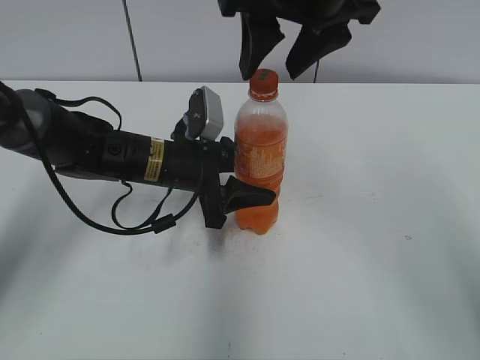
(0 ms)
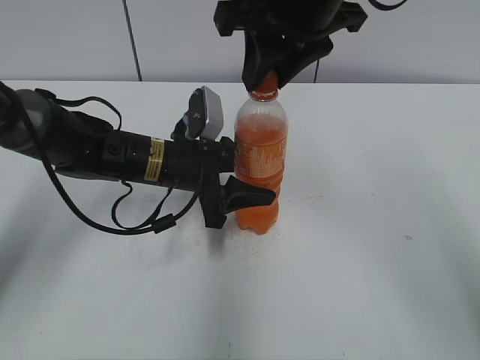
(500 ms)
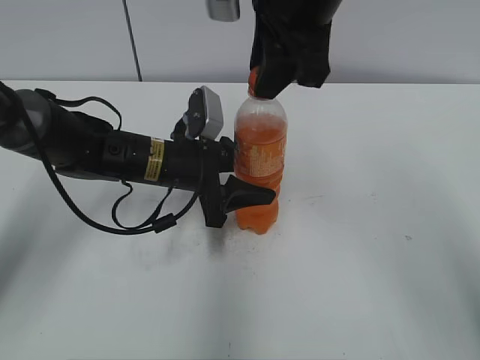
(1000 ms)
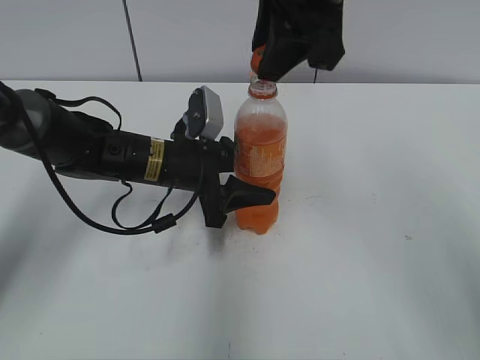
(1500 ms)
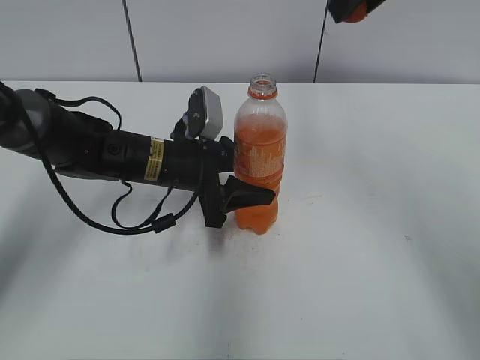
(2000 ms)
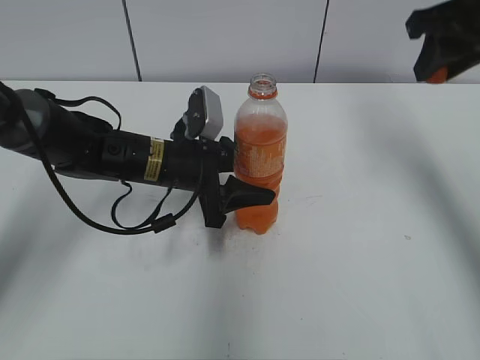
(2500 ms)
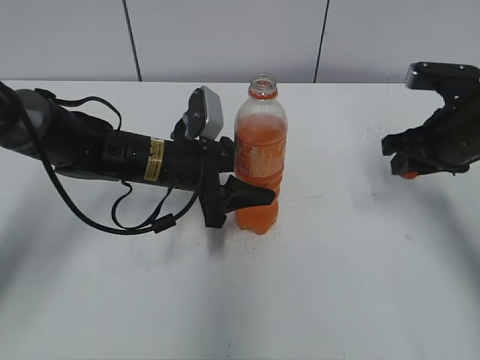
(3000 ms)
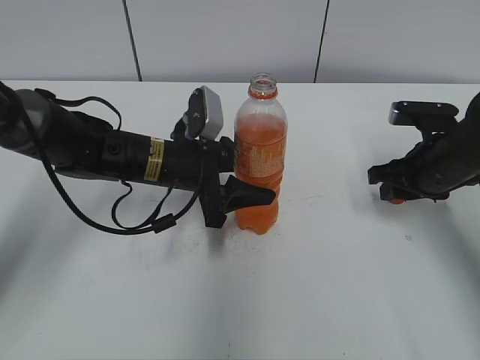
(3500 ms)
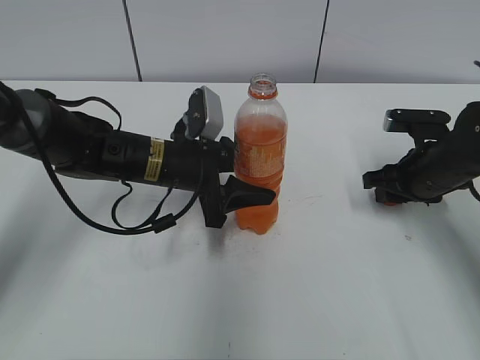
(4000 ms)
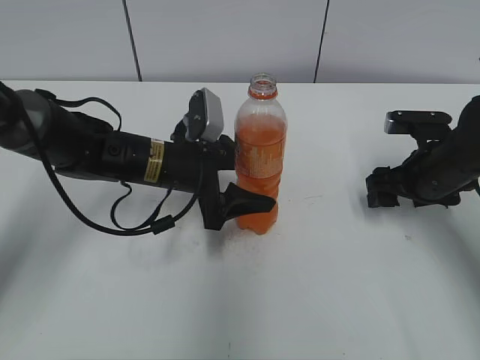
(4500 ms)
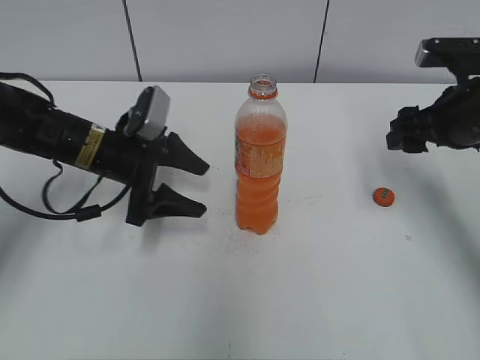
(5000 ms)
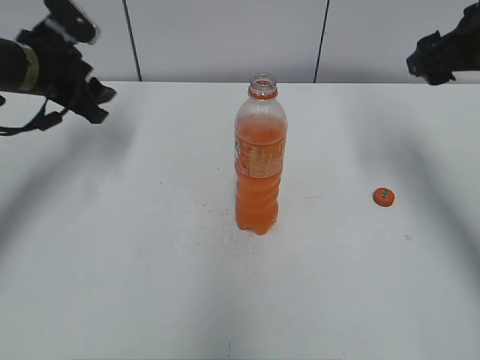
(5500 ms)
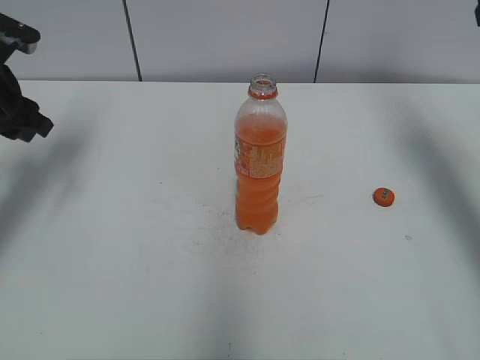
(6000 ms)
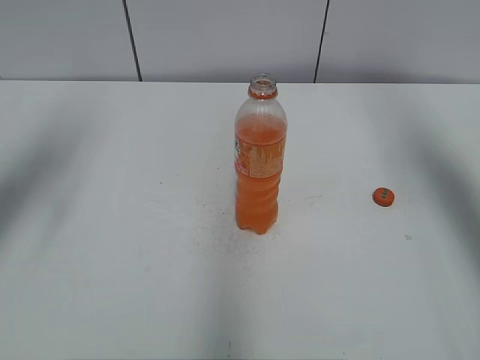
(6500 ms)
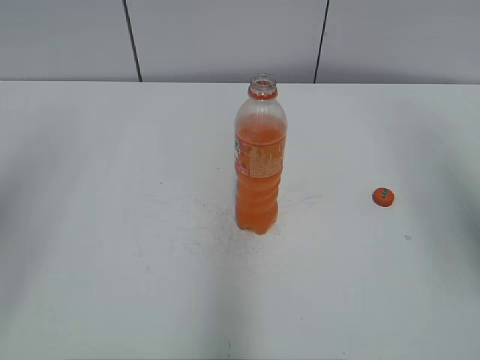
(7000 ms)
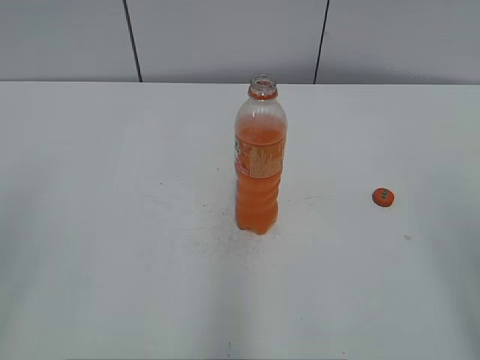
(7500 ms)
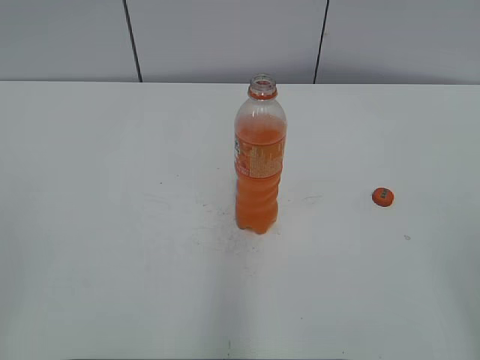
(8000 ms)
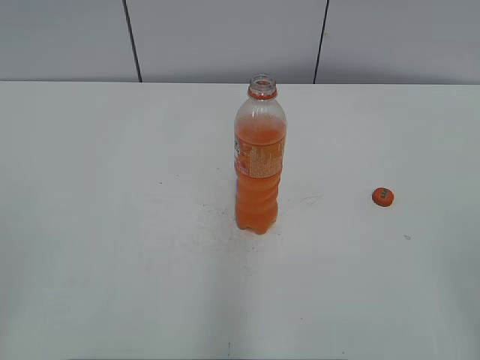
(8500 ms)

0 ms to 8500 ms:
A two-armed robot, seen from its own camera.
Step, 2000 ms to 4000 ms: Place the bottle cap on the right.
0 ms to 2000 ms: The right gripper is displaced to the right by about 10 cm, and closes its fingers.
2000 ms to 4000 ms: The right gripper travels downward by some 30 cm.
4000 ms to 6500 ms: The right gripper shifts approximately 30 cm upward, and opens its fingers. The left gripper moves upward and to the left, some 30 cm, and opens, then closes once more.
6500 ms to 8500 ms: The grippers both shift backward by about 30 cm.

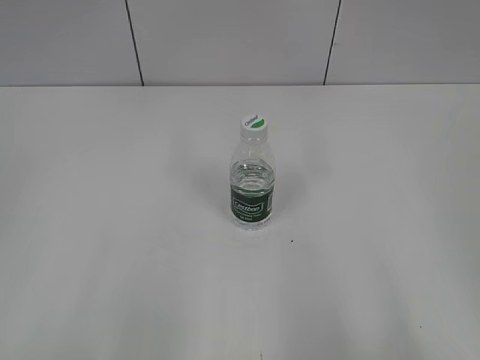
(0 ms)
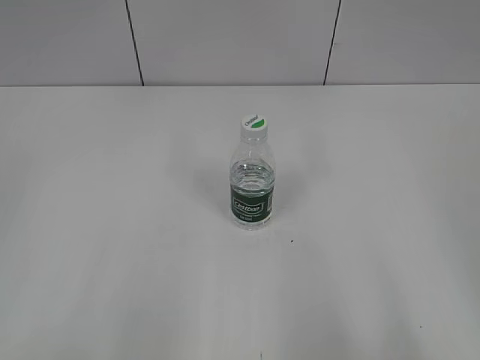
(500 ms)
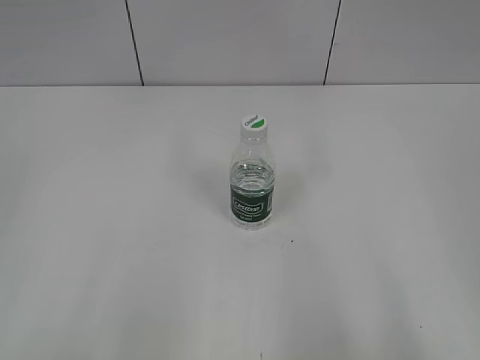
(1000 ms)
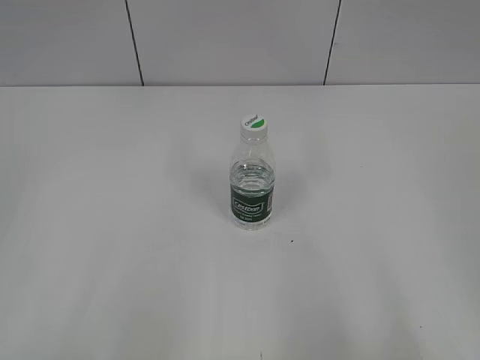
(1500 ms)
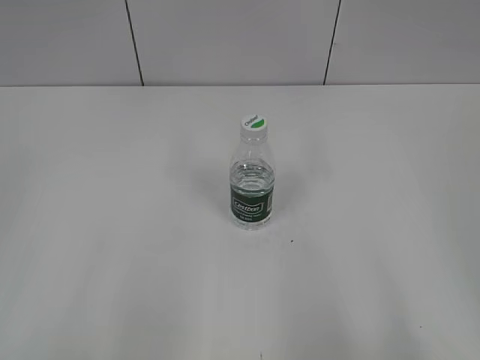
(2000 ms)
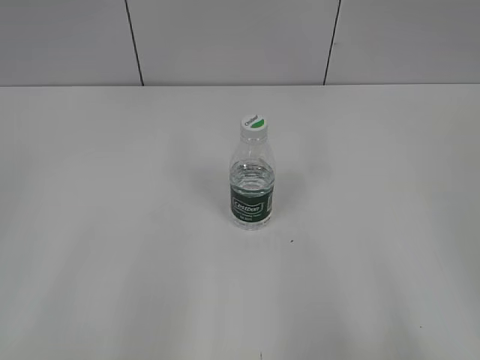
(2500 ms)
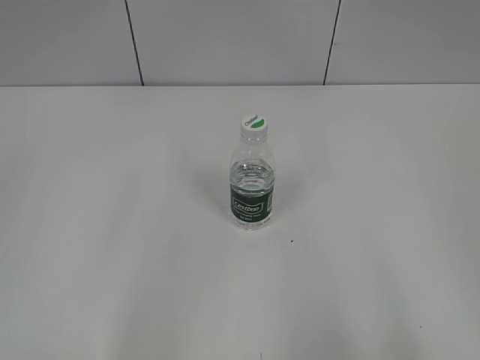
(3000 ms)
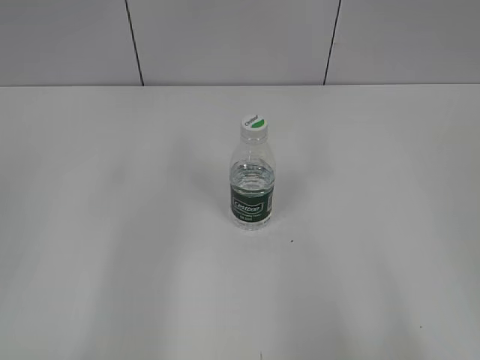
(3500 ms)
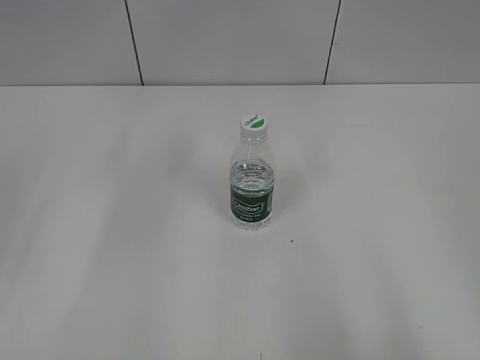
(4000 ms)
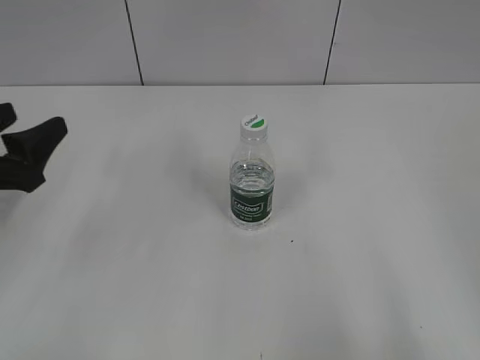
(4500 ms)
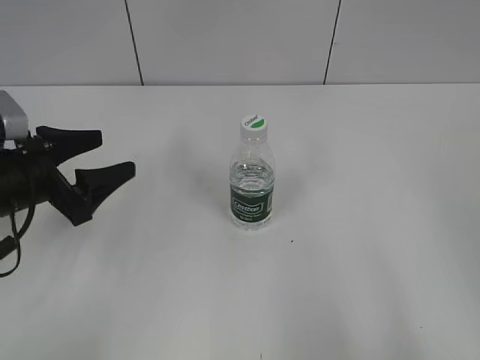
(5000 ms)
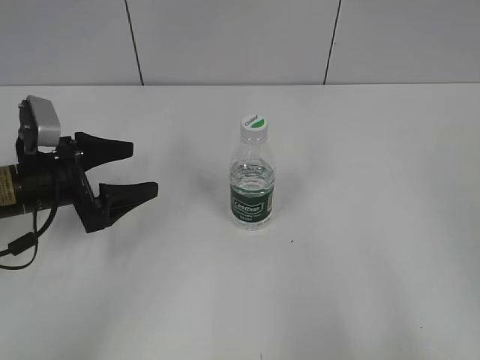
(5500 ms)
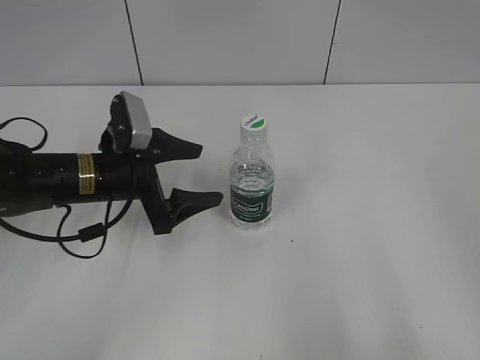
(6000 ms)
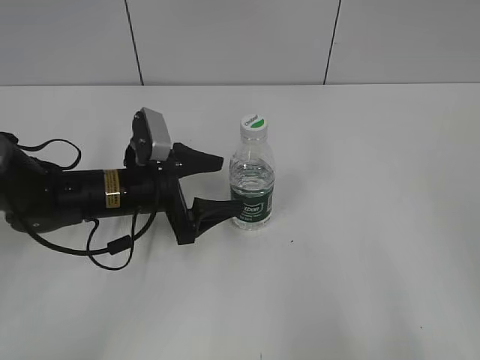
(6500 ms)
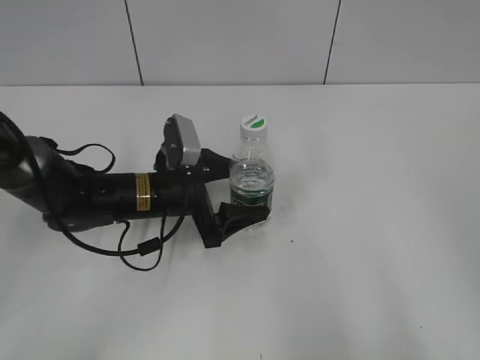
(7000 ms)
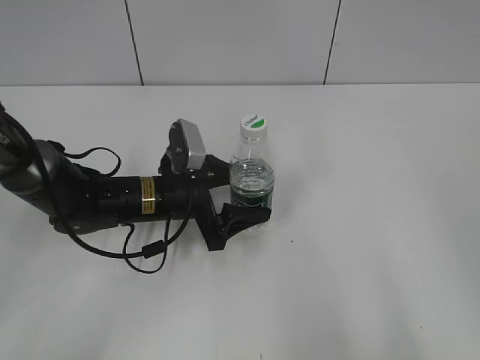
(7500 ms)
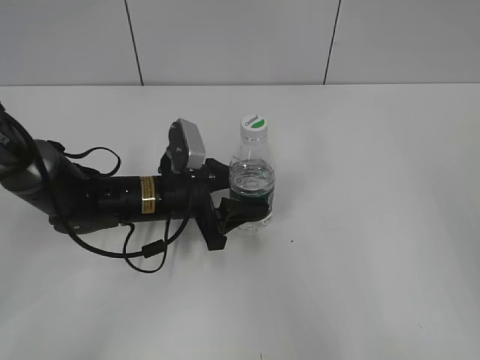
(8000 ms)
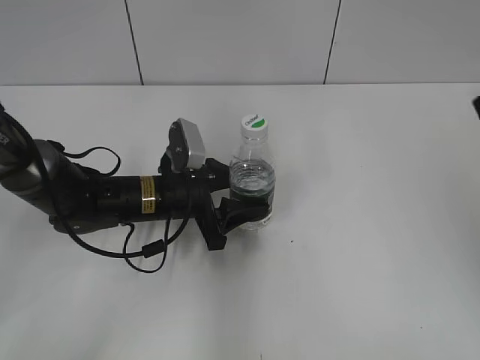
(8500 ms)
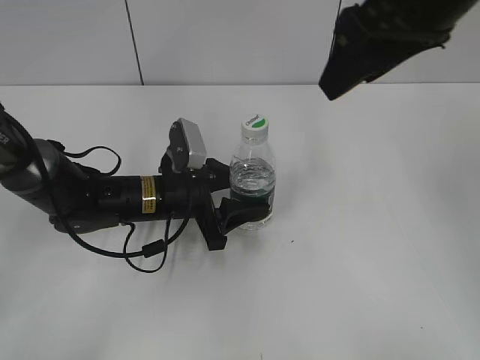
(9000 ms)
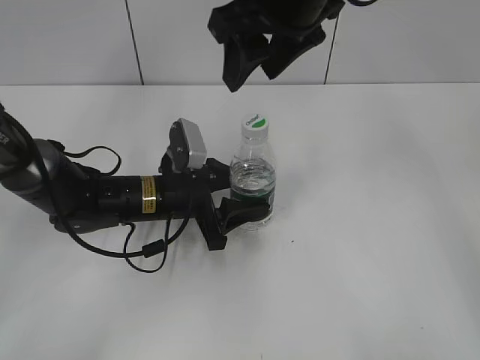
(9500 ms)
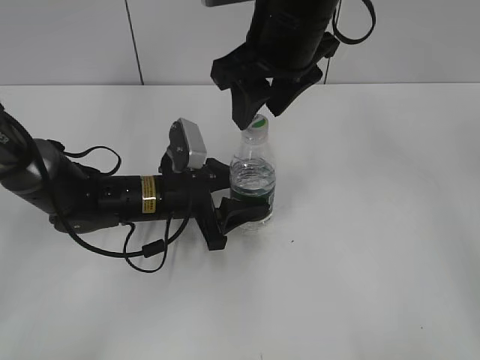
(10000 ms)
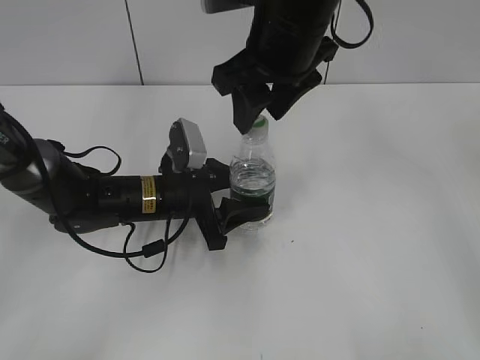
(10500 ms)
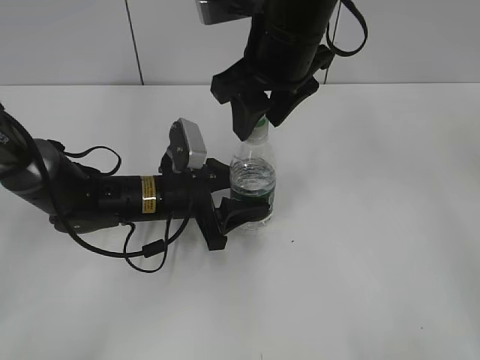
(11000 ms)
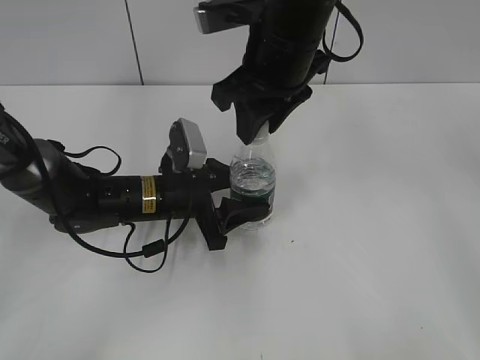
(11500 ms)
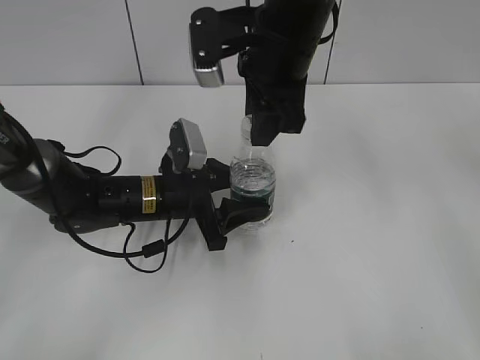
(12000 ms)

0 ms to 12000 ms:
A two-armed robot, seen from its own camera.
Step, 0 ms to 8000 ms: Grasp the bottle and move it to the center of the table with the left gripper.
4000 ms to 6000 ms: The left gripper heads forward, to the right and downward, covering some 25 cm.
6000 ms to 8000 ms: The left gripper heads to the right, covering some 5 cm, and closes.
8000 ms to 10000 ms: The right gripper shifts about 40 cm forward and to the left, and closes up.
10000 ms to 12000 ms: The right gripper closes.

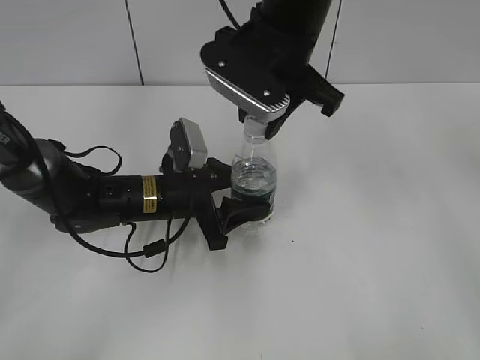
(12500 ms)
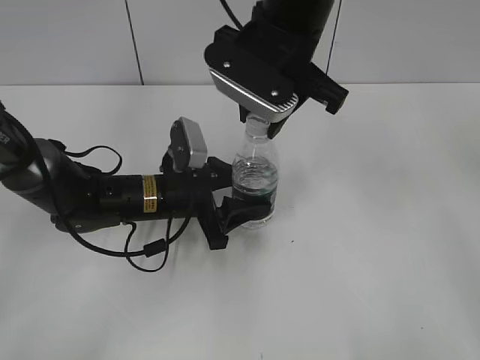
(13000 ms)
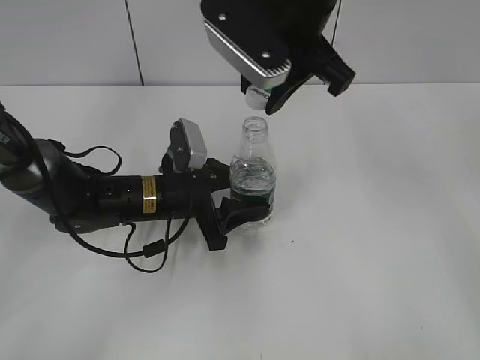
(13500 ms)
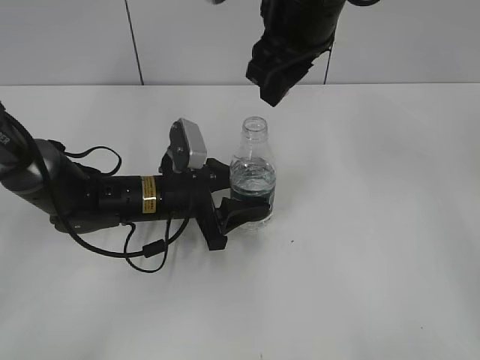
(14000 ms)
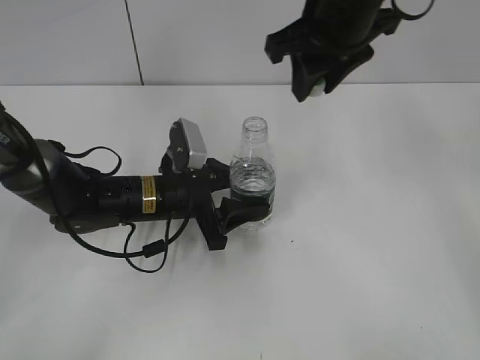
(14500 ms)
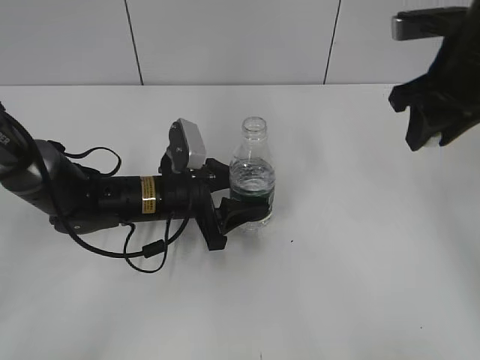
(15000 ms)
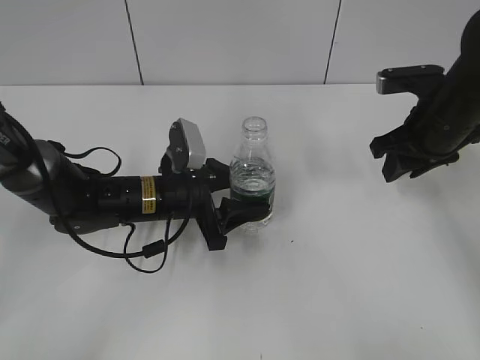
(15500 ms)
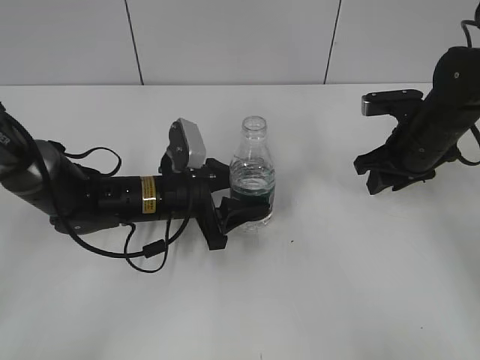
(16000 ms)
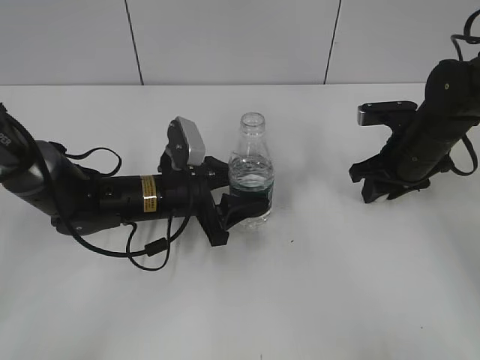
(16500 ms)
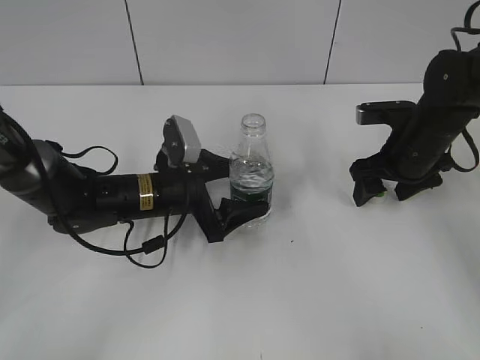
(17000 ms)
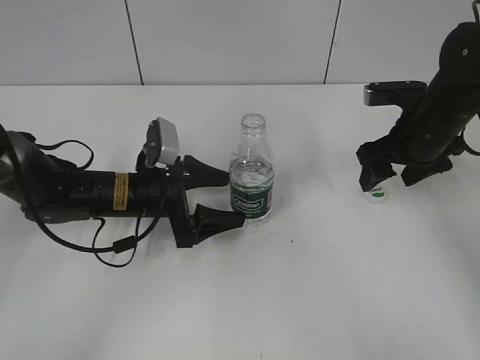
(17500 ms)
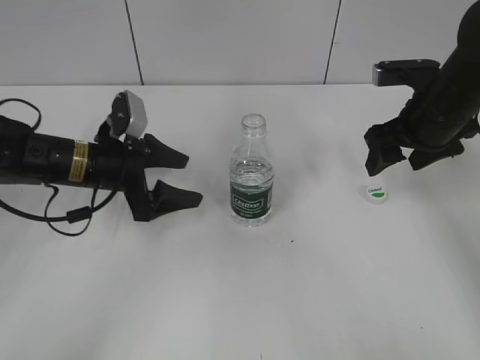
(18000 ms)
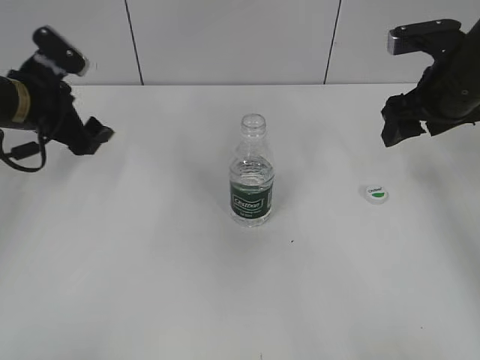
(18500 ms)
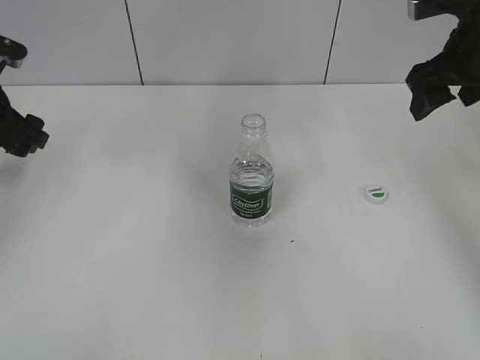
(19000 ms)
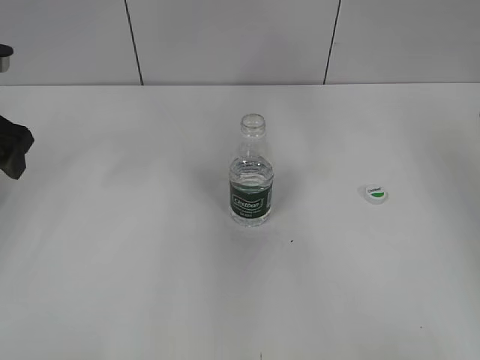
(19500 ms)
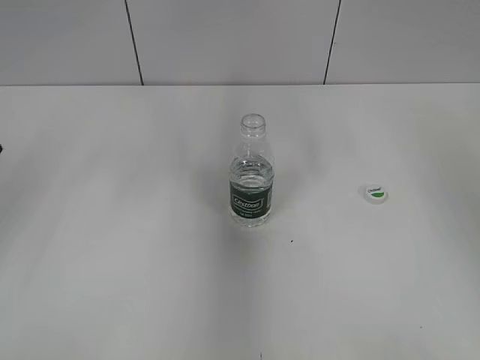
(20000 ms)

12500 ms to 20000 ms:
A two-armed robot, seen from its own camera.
Step, 13500 ms to 16500 ms: Place the bottle cap on the table with the right gripper.
Step, 17000 ms to 17500 ms: Place the bottle on the table with the left gripper.
12500 ms to 14500 ms: The right gripper changes place by some 5 cm.
14500 ms to 16500 ms: The right gripper goes about 25 cm downward and to the right.
16500 ms to 18000 ms: The left gripper travels to the left by some 10 cm, and opens; the right gripper heads upward, covering roughly 5 cm, and opens up.
18000 ms to 20000 ms: The right gripper is displaced upward, to the right and backward by some 15 cm. Meanwhile the left gripper moves upward and to the left, roughly 20 cm.
